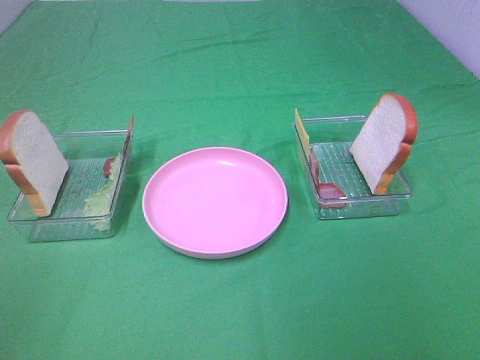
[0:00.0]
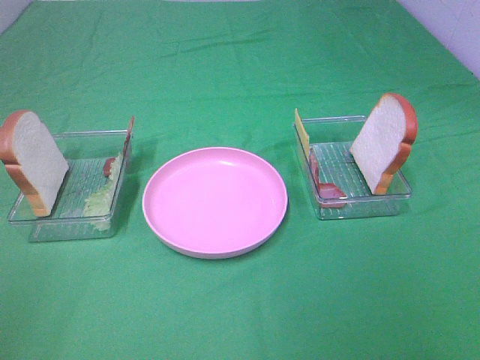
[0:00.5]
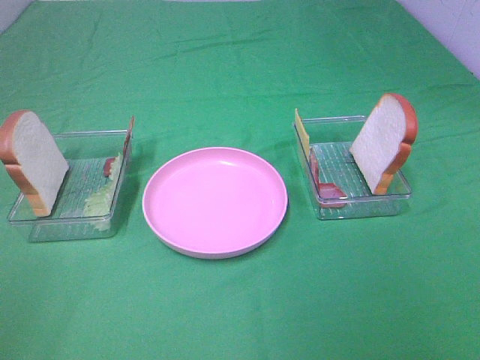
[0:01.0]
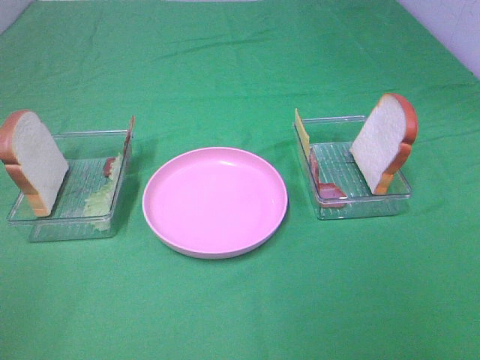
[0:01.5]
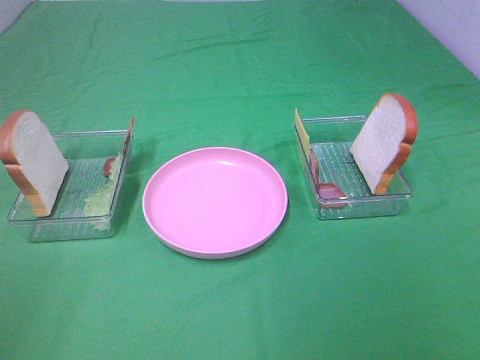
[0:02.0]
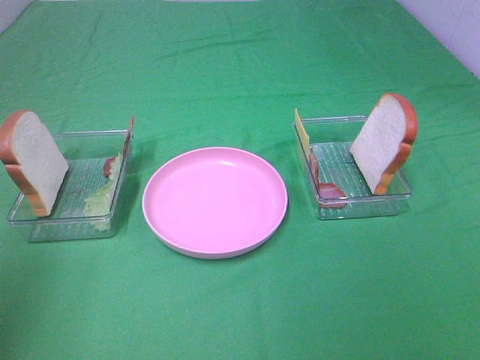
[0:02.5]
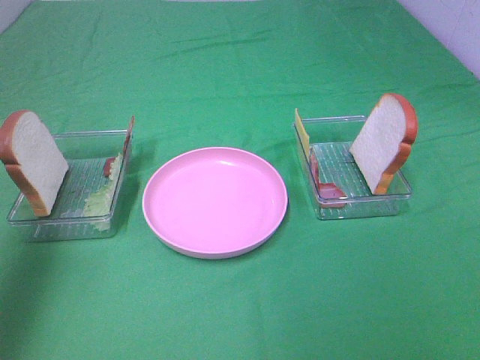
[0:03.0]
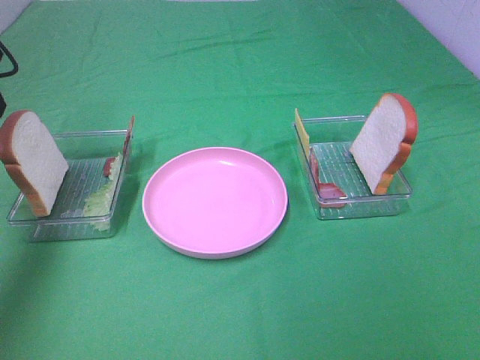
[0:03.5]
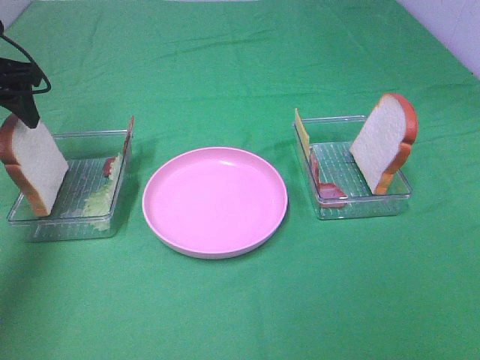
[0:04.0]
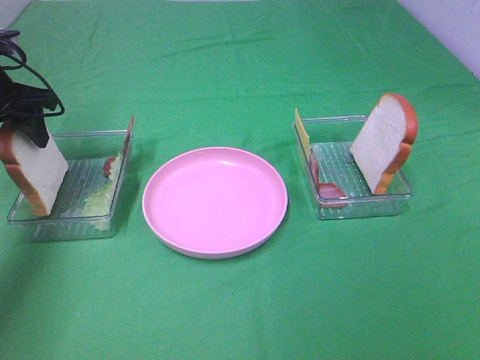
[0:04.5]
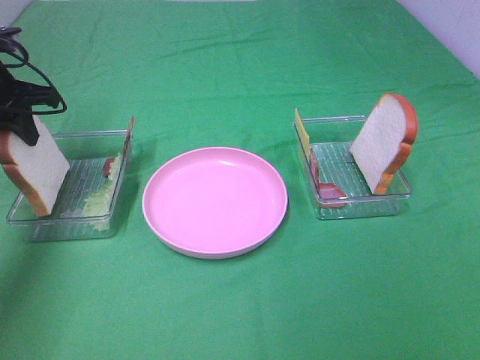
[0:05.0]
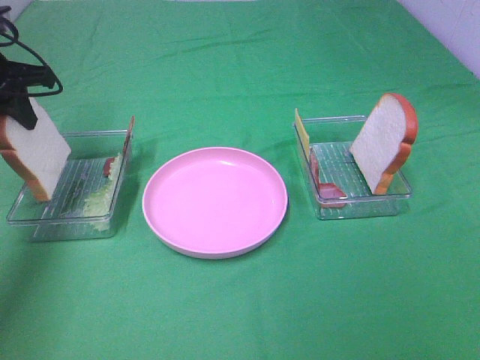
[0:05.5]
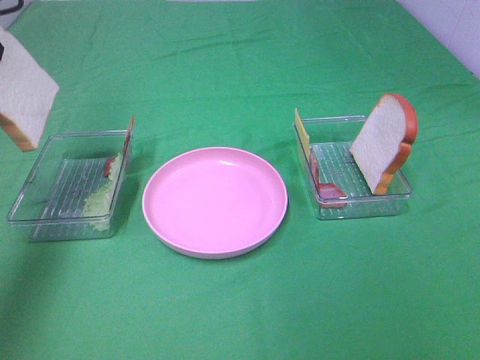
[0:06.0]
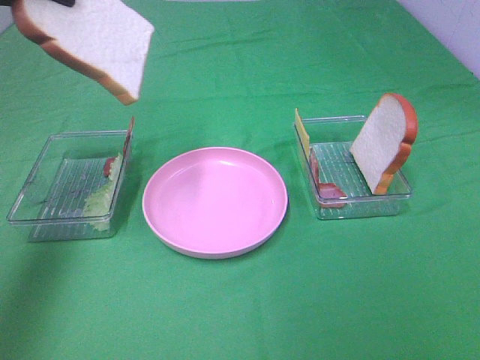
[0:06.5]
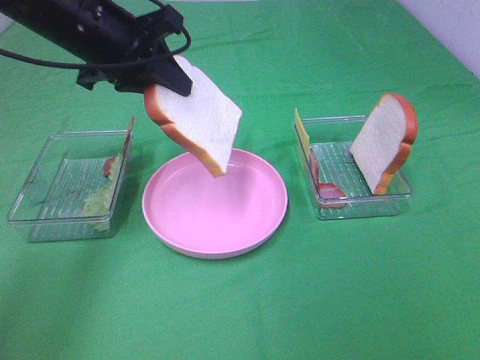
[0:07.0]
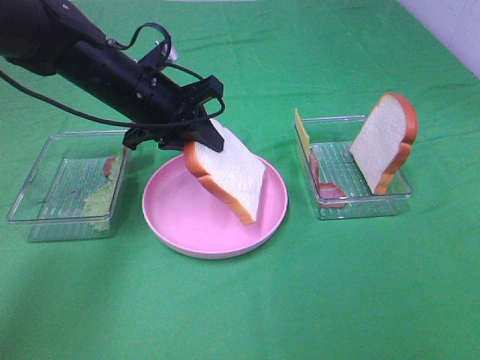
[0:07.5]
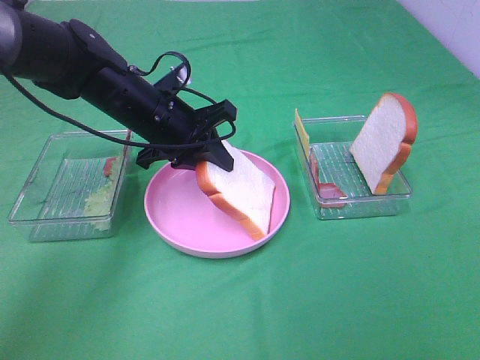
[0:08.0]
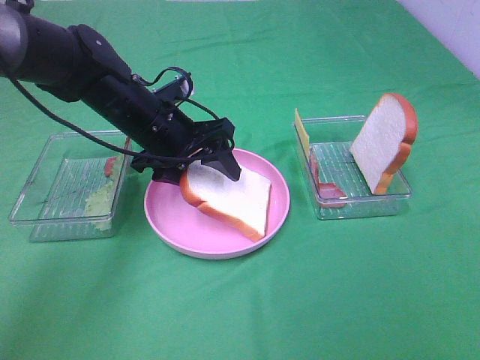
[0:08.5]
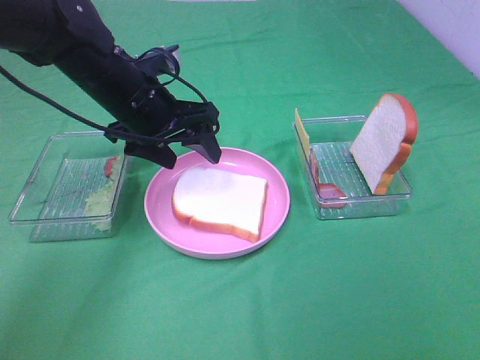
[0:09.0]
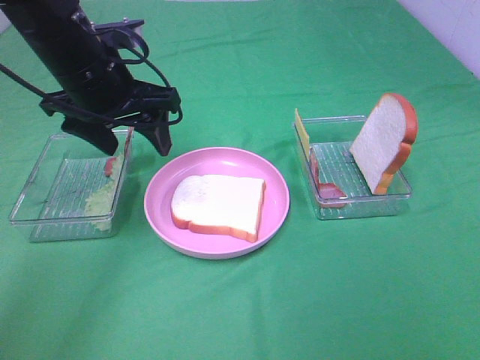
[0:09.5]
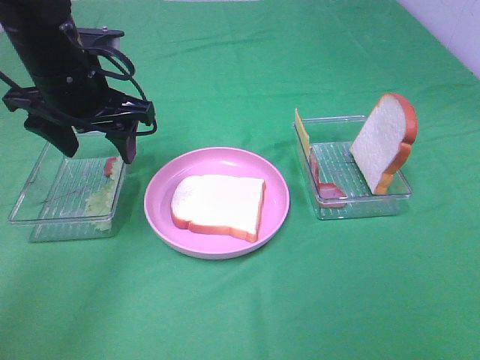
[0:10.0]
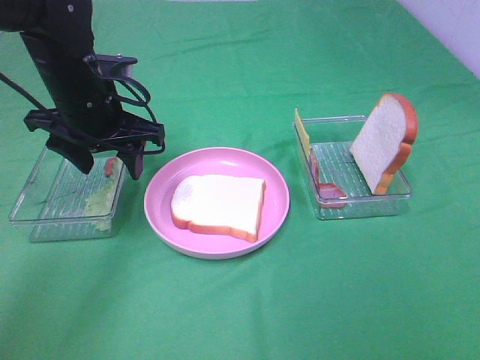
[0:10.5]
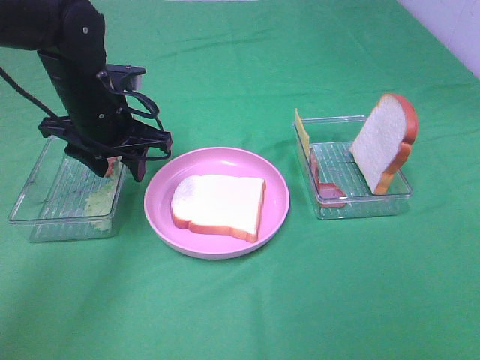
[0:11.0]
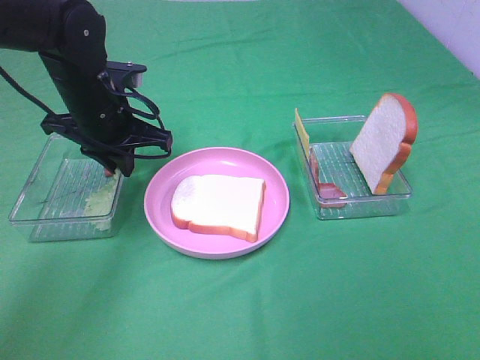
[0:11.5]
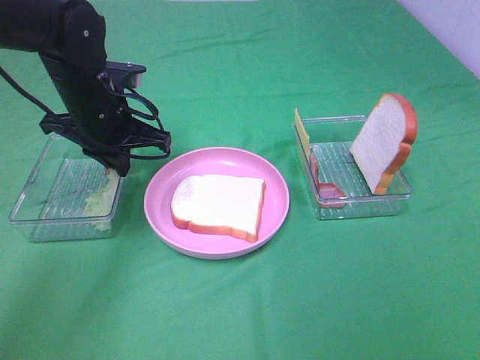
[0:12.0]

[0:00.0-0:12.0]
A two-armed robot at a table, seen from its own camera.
Task of the whole recording: Make sandwiches.
Step, 0:00.0 to 0:05.0: Left hand:grab the bread slice.
Step, 0:05.5 to 0:09.0: Left hand:place the bread slice on the plate.
Step, 0:09.5 to 0:12.0: Left hand:grab the lettuce slice.
0:02.0 to 0:04.0: The left gripper heads forward, covering about 40 cm.
0:04.0 to 0:06.0: The left gripper moves upward and backward, approximately 10 cm, and closes its fingers.
0:06.0 to 0:08.0: The left gripper travels downward and to the right by roughly 25 cm.
0:08.0 to 0:10.0: The left gripper goes some 10 cm upward and to the left, and opens.
0:10.0 to 0:12.0: The left gripper goes about 5 cm downward, and closes up.

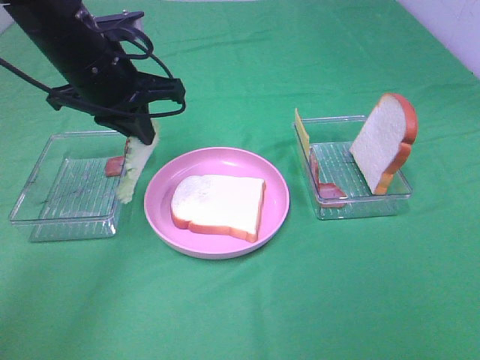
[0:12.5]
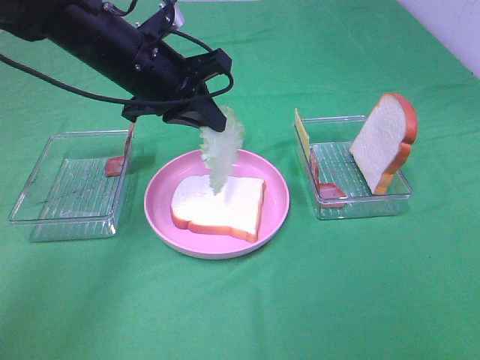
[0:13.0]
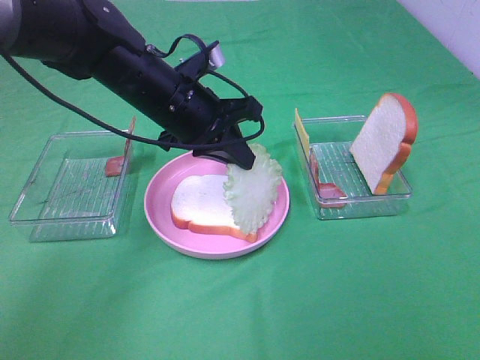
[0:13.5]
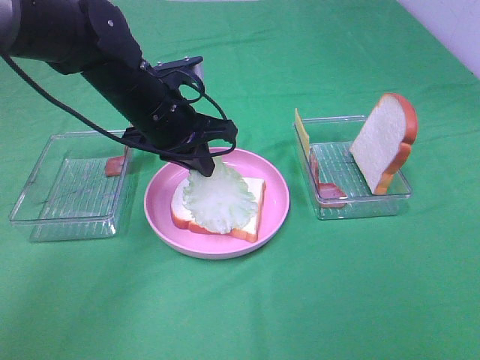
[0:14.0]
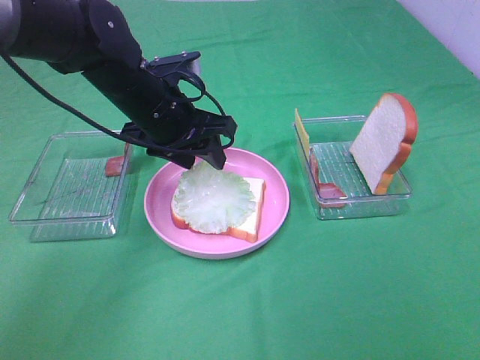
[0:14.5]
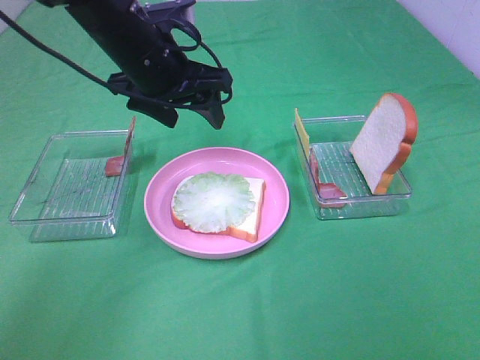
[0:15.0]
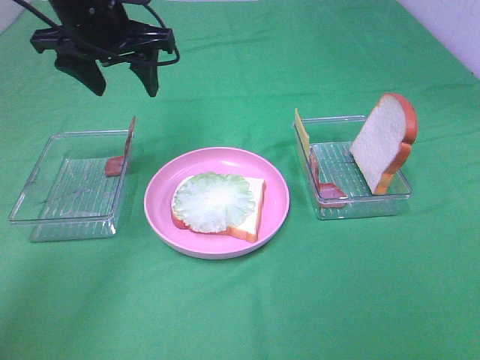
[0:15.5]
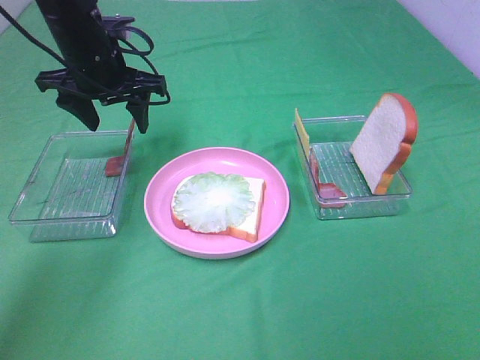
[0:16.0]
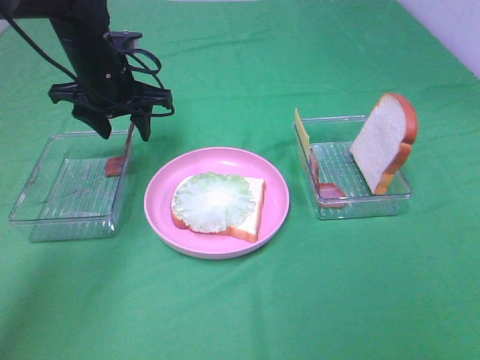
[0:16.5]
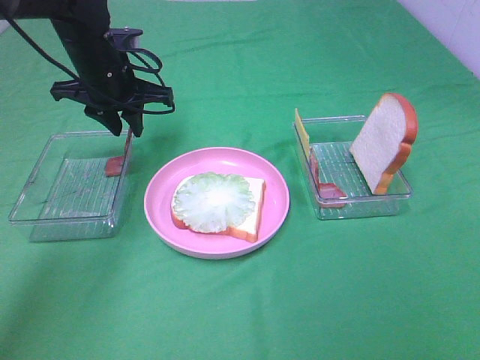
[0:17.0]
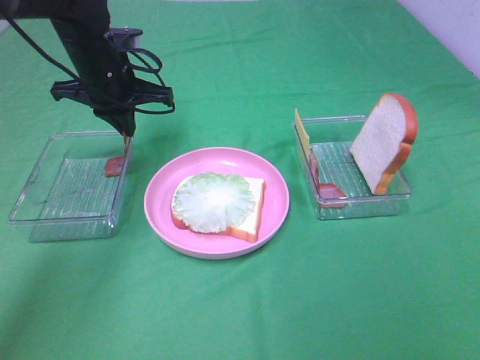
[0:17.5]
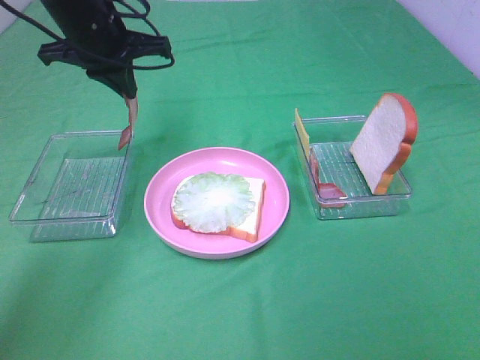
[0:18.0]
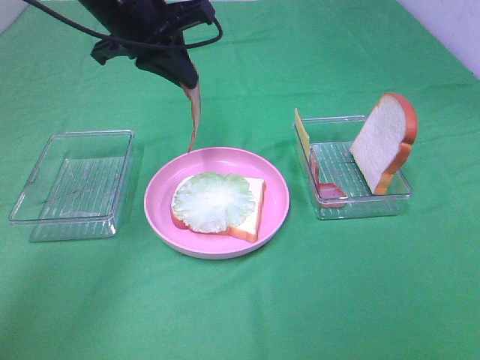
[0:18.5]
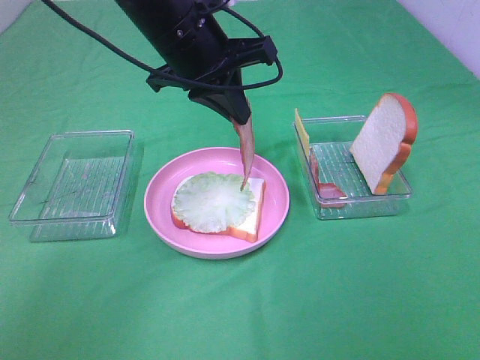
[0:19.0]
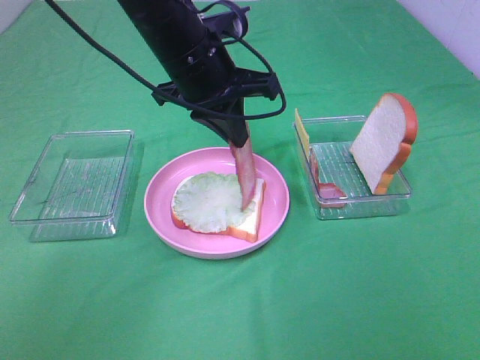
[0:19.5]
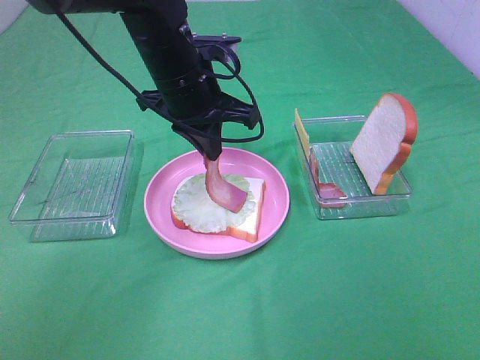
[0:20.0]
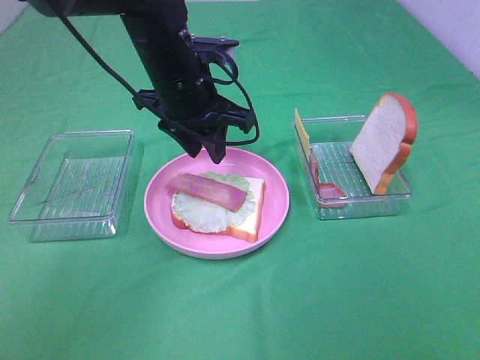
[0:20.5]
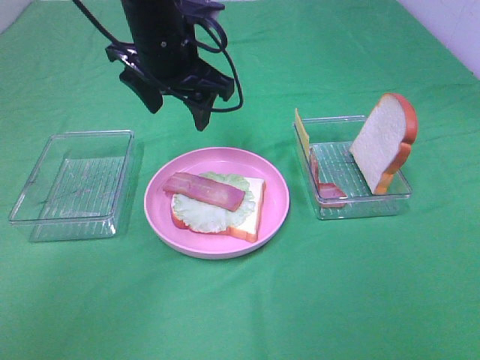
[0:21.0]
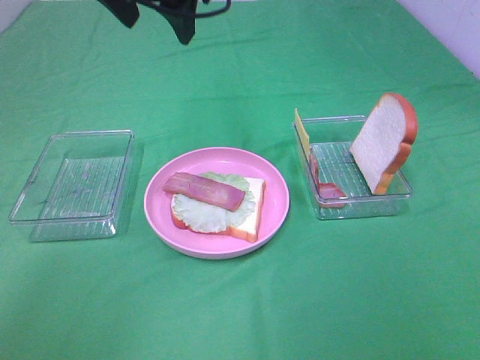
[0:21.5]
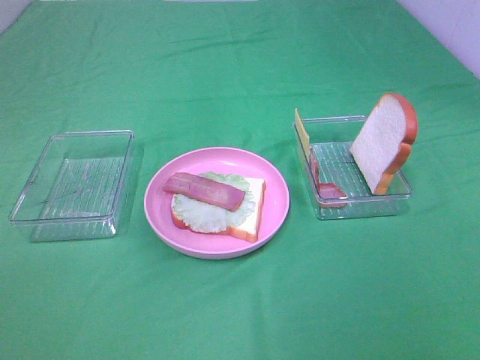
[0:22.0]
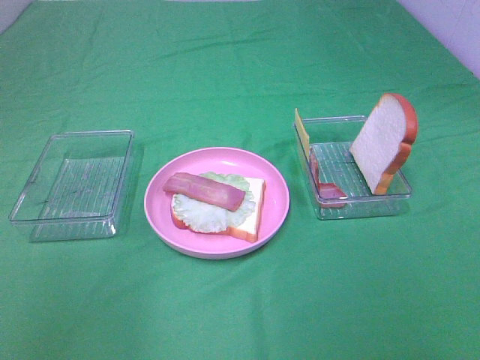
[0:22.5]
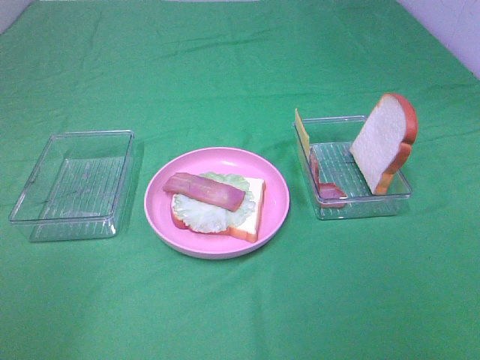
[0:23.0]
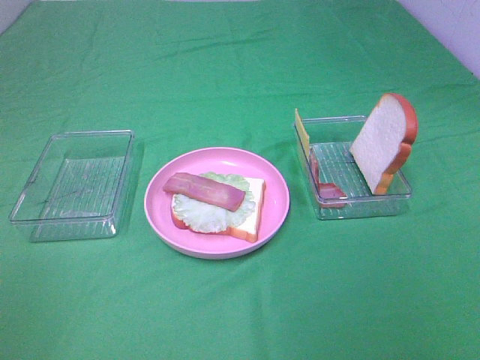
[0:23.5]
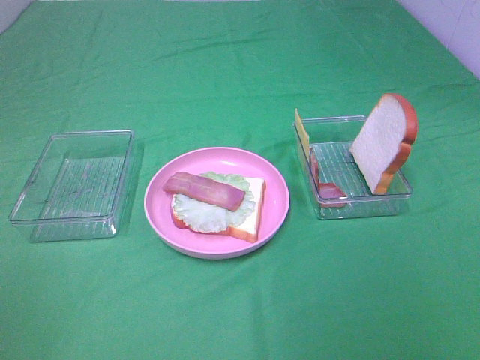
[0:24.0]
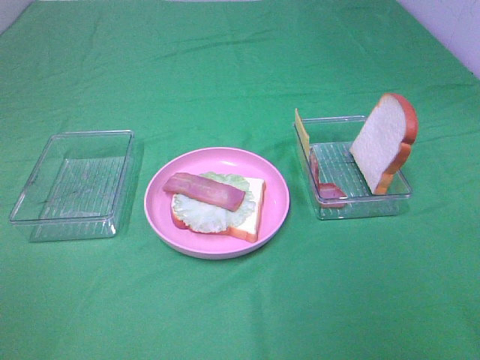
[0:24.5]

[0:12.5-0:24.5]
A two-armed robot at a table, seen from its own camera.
Task of the whole recording: Make sandwiches.
Step, 0:12.5 to 0:14.5: Left hand:place the lettuce slice on the bread slice.
Step, 0:15.0 to 0:17.5: Left hand:grab the bacon.
Step, 0:18.0 to 0:20.5: Left hand:place bacon on lettuce slice.
0:12.5 to 0:14.5: The left gripper is displaced downward by roughly 5 cm, and opens up.
0:14.5 to 0:16.5: The left gripper heads forward and to the left, covering roughly 10 cm, and travels upward and back again, some 10 cm each way.
0:16.5 to 0:18.5: The left gripper heads upward and to the right, covering about 10 cm, and closes its fingers.
0:18.5 to 0:20.5: The left gripper is displaced downward by about 5 cm, and opens.
0:20.5 to 0:22.5: The left gripper heads backward, upward and to the left, covering some 35 cm, and opens.
0:22.5 to 0:24.5: The left gripper moves backward, downward and to the left, roughly 20 cm.

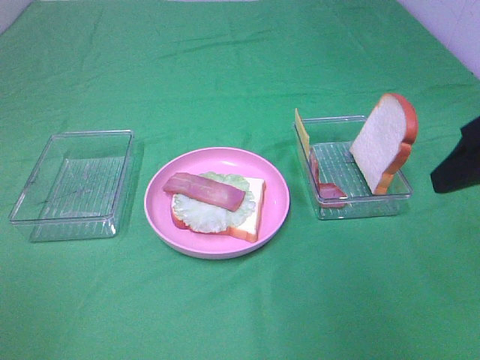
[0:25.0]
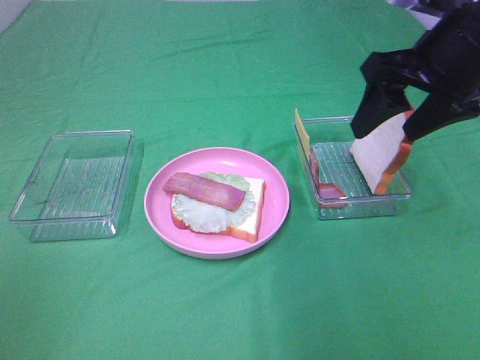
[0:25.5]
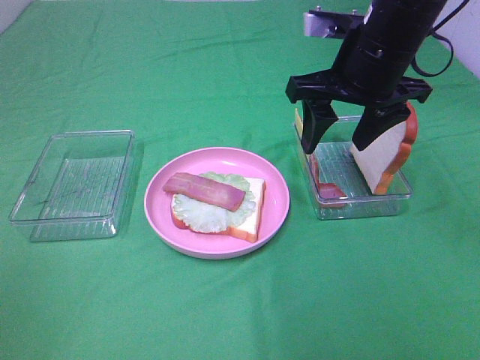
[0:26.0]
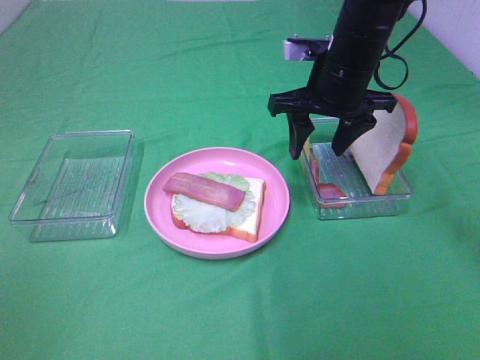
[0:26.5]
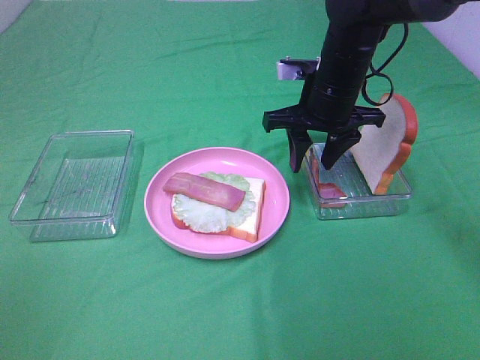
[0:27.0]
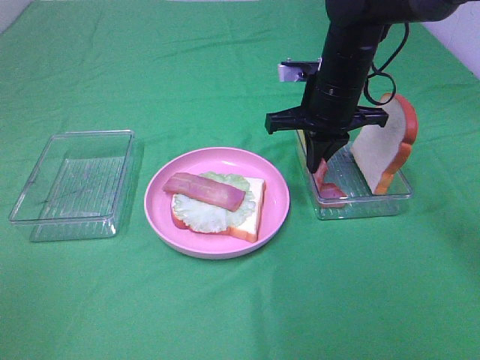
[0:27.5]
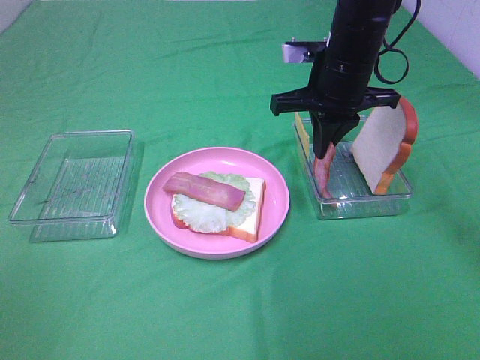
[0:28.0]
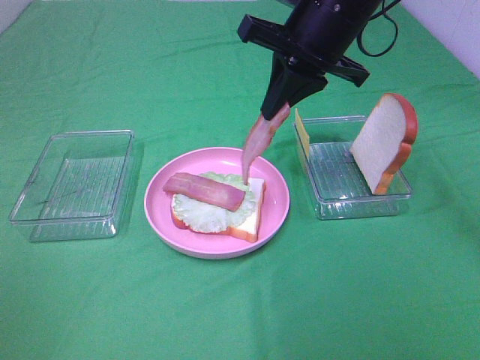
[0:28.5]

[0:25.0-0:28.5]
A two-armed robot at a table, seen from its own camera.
Task of the whole recording: Make sandwiches.
Step, 0:25.0 to 0:27.5: Right hand:grab the bacon.
0:25.0 to 0:27.0: The right gripper is displaced forward, to the left and downward by approximately 25 cm.
0:27.0 to 0:28.5: The right gripper travels upward by some 10 cm, and closes its fingers.
